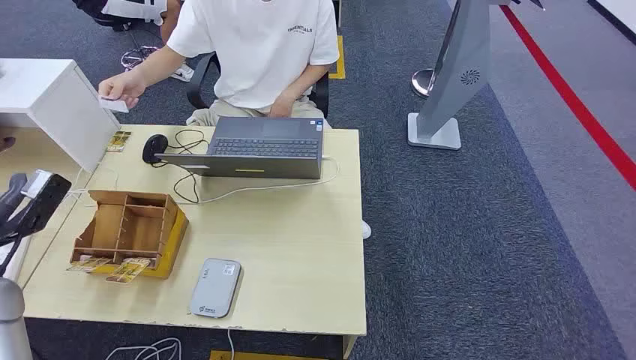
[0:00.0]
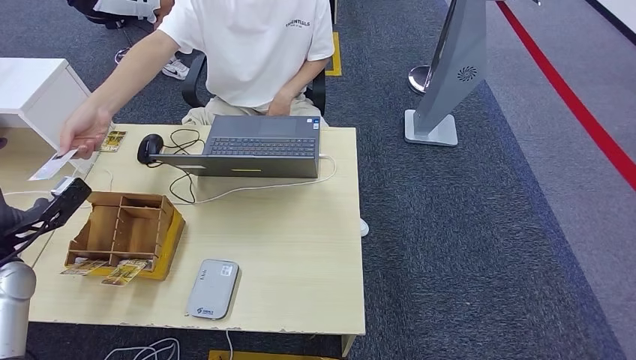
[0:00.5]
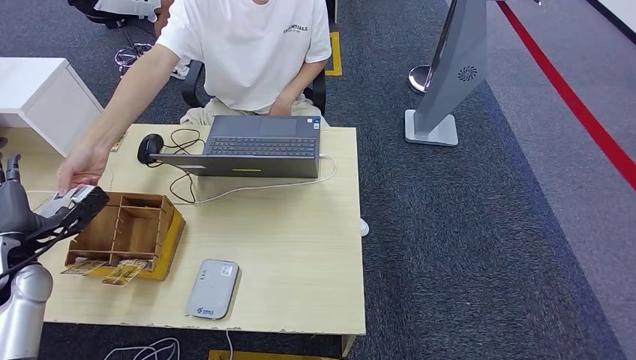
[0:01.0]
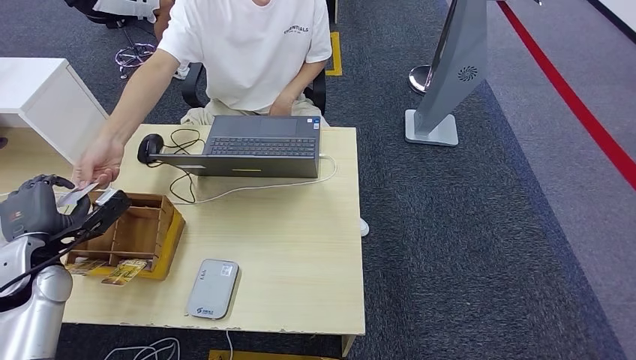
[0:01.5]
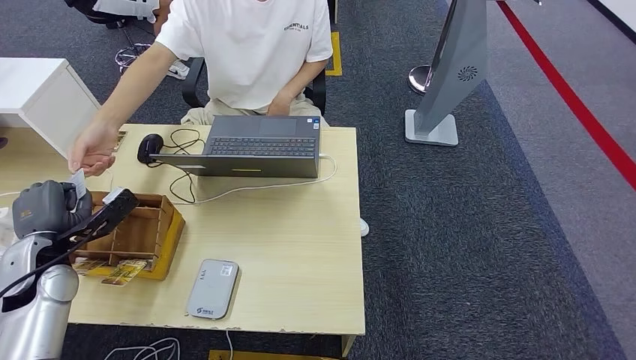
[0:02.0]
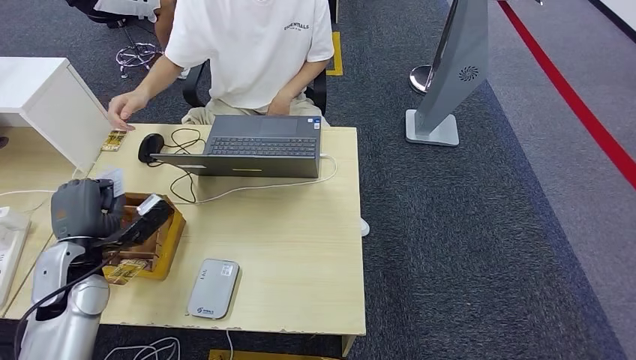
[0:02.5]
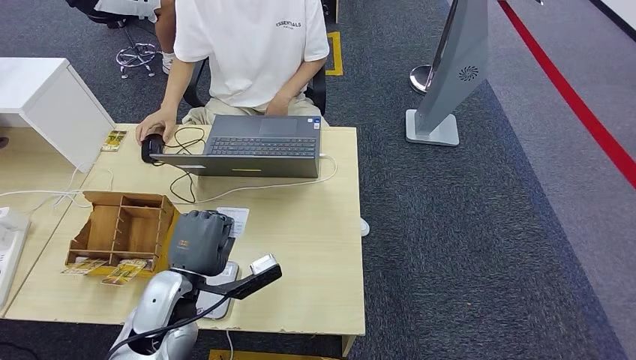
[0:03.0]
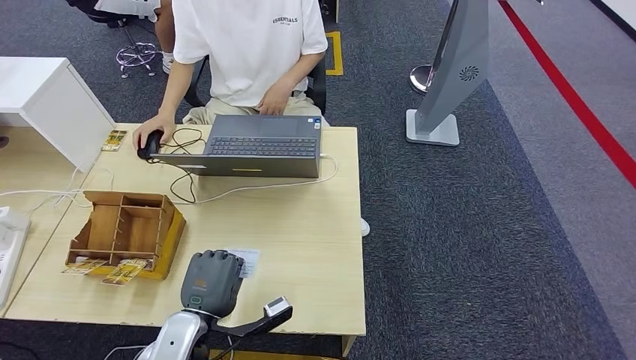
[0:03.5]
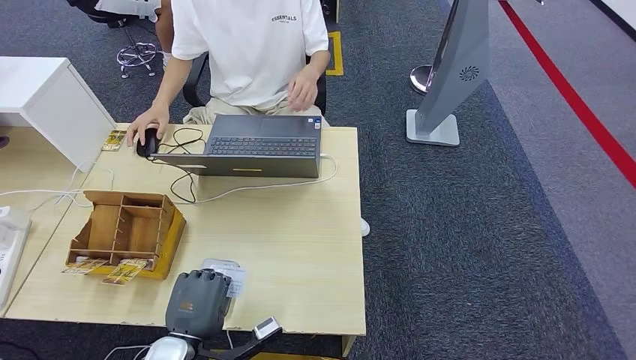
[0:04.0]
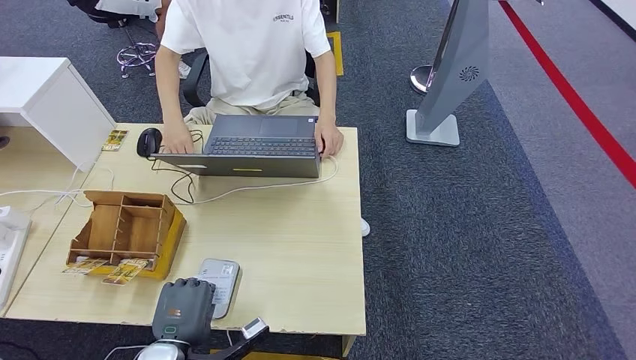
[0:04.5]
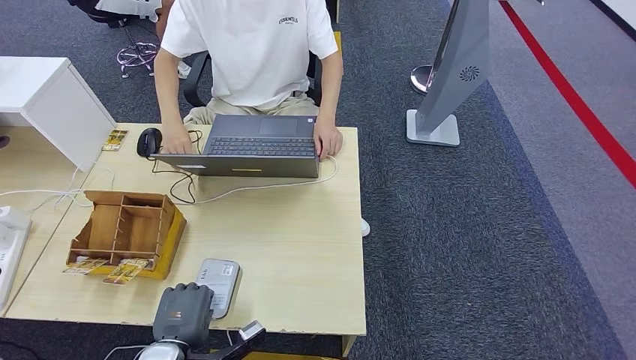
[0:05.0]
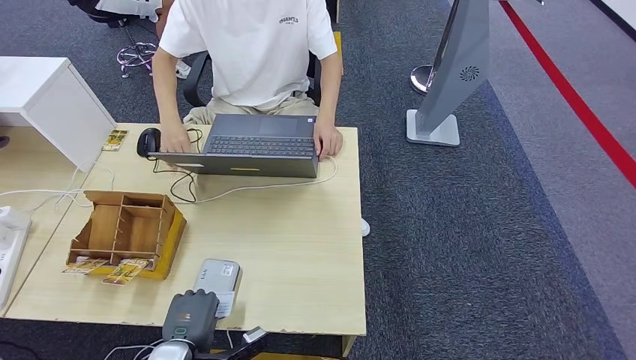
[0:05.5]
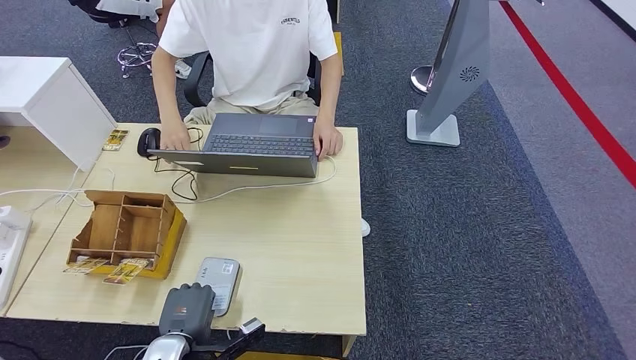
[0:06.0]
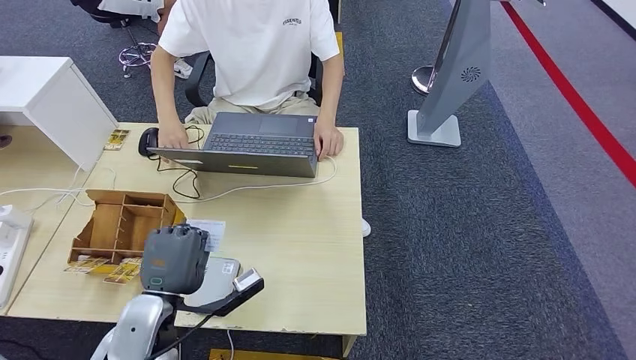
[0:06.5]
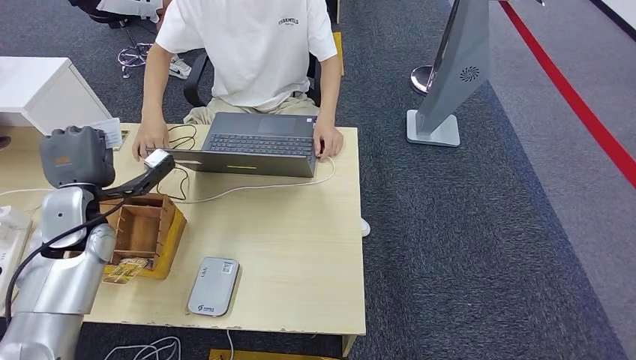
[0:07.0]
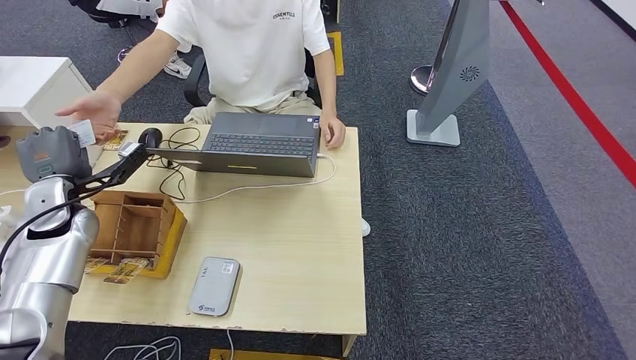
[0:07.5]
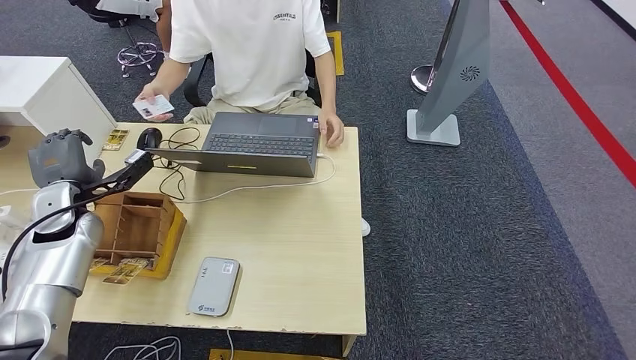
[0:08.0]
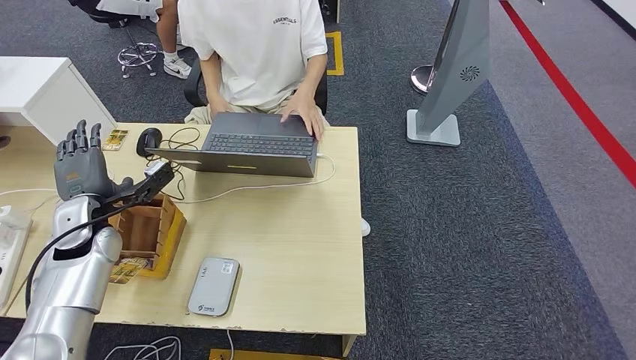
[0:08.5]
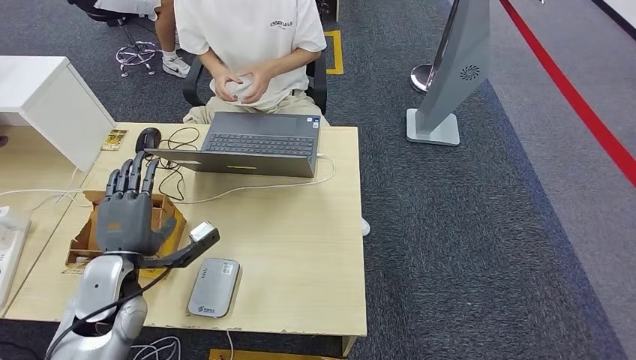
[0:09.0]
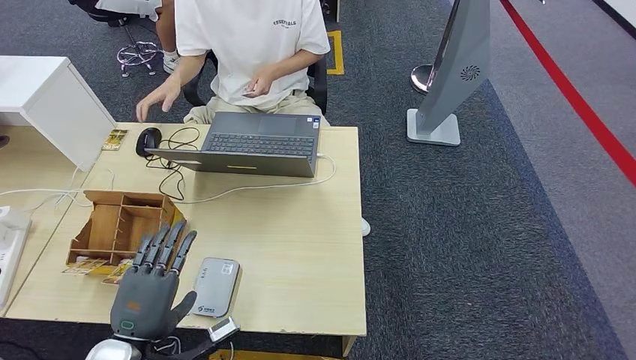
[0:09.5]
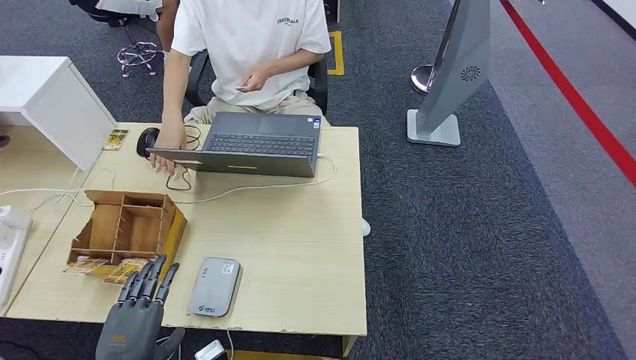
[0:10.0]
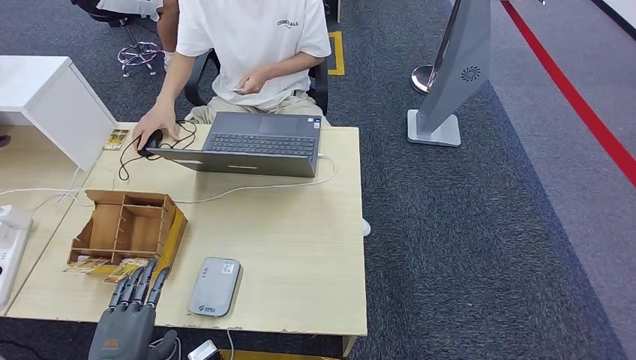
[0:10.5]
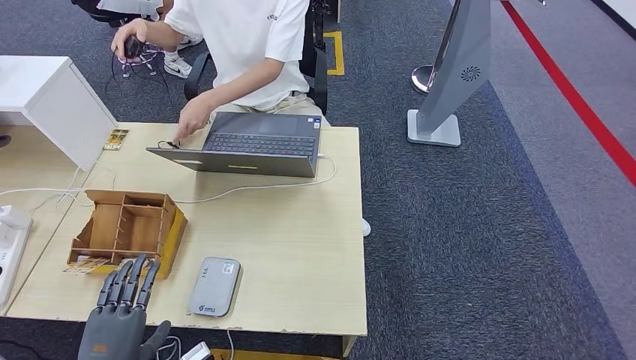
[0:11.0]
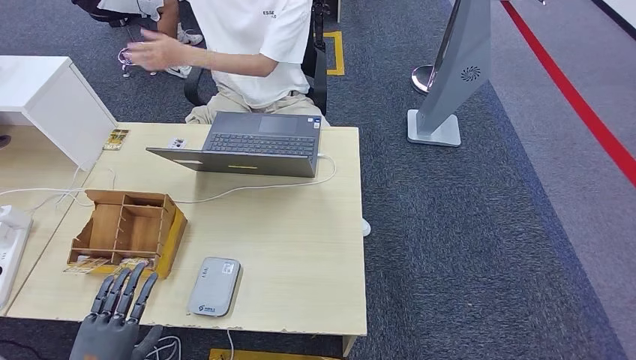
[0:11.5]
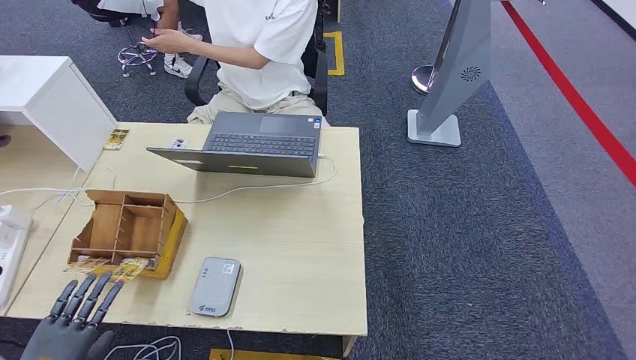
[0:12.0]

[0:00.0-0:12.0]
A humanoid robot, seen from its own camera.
Step, 0:00.0 to 0:03.0: Take the ID card from the person's hand.
Step, 0:03.5 to 0:06.0: Place the ID card on the card reader.
Step, 0:06.5 to 0:09.0: Hand the ID card to the person.
0:02.0 to 0:04.0: The left hand travels to the right and backward by approximately 30 cm.
0:04.0 to 0:06.0: The left hand moves roughly 5 cm.
0:06.0 to 0:08.0: The left hand shifts some 35 cm forward, to the left and upward.
0:08.0 to 0:10.0: The left hand is displaced backward and to the right by about 30 cm.
0:10.0 to 0:12.0: The left hand heads to the left, covering approximately 15 cm.

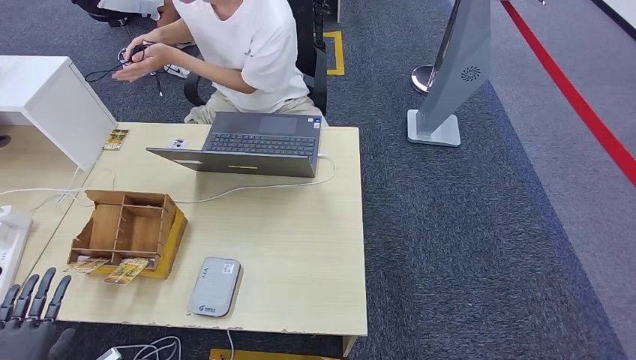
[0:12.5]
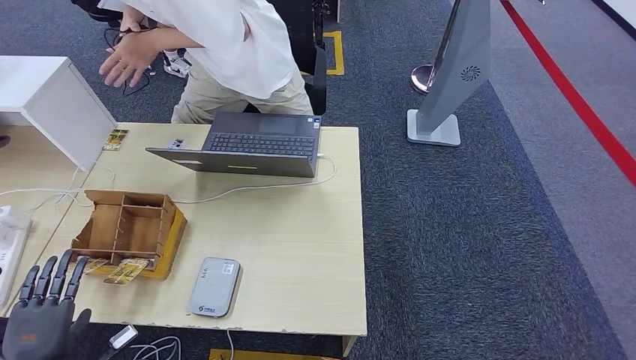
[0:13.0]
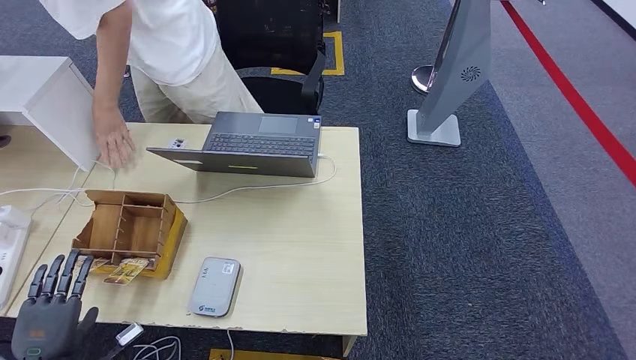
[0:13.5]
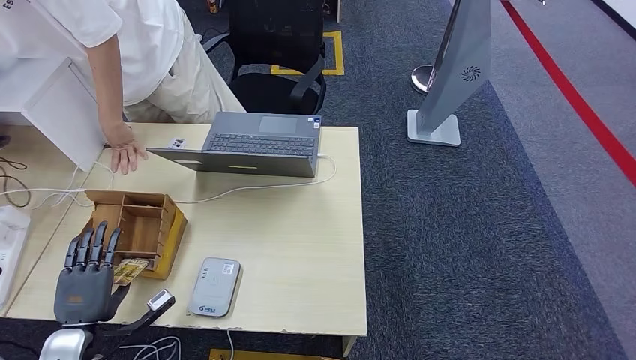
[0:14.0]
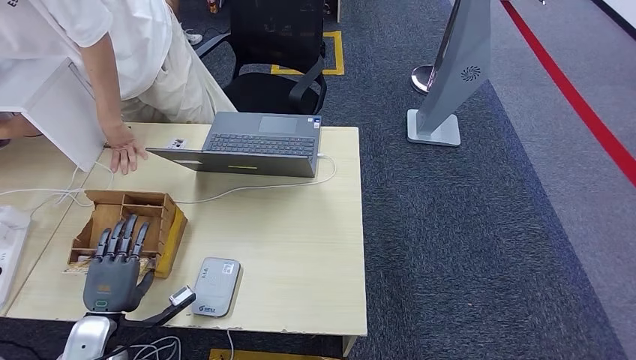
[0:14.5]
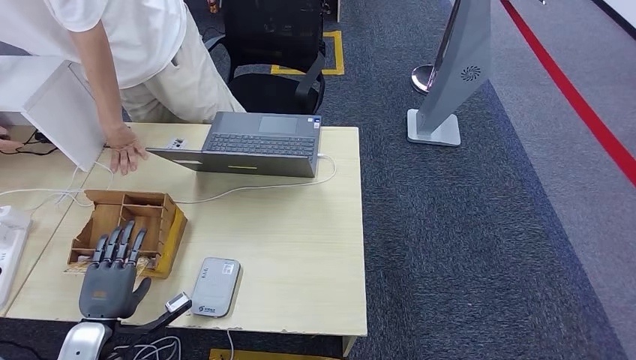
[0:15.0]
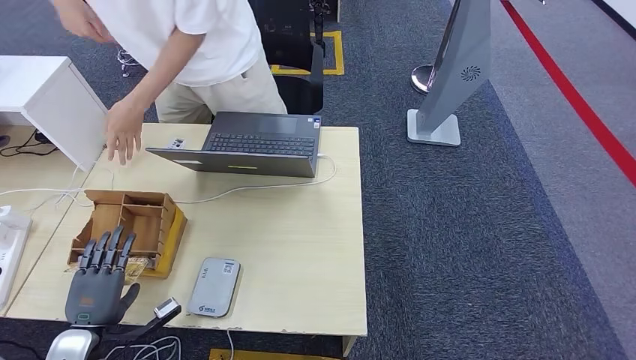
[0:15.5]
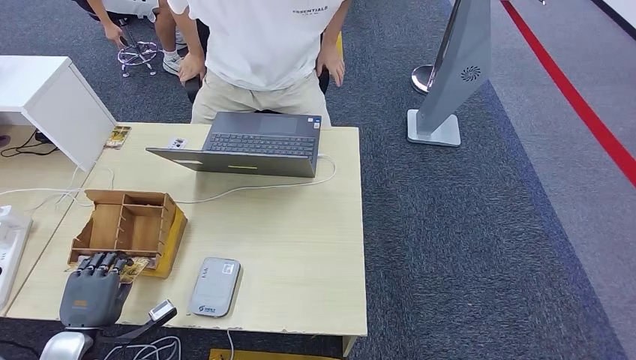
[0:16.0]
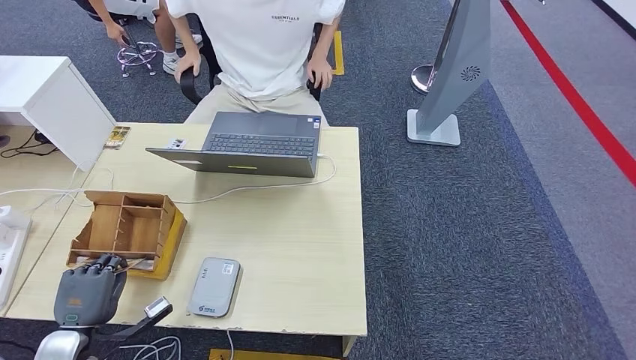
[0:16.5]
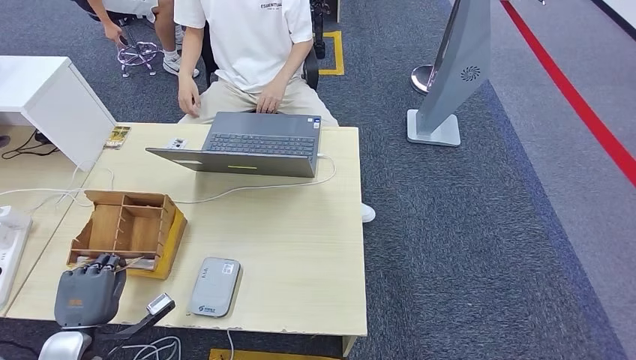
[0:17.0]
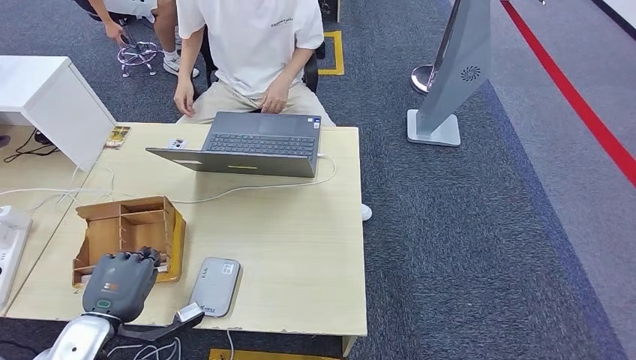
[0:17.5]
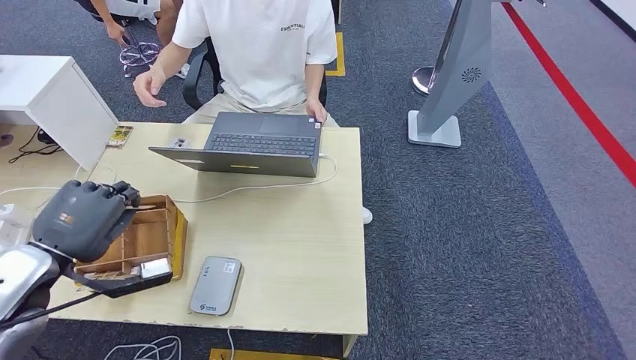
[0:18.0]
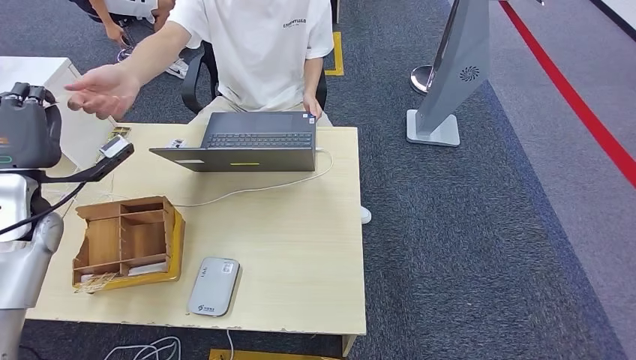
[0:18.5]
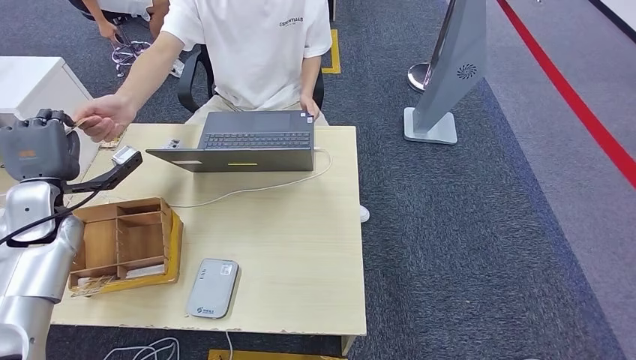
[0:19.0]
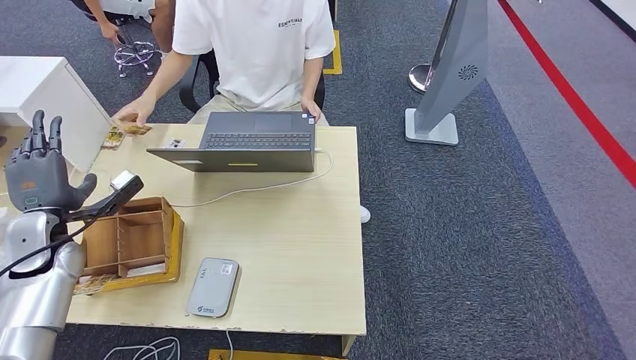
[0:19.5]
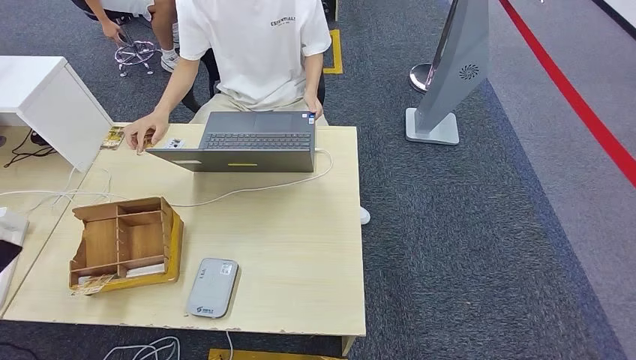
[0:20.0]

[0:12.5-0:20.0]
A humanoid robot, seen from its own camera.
Step, 0:15.5 to 0:18.0: Pick up the room key from the key card box.
Step, 0:18.5 to 0:20.0: Hand the room key to the person.
0:16.5 to 0:18.0: The left hand travels upward by roughly 20 cm.
0:18.0 to 0:20.0: The left hand goes roughly 20 cm to the left, and travels forward and back again, about 15 cm each way.
